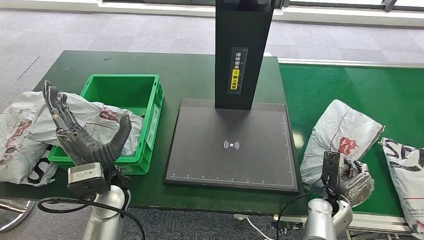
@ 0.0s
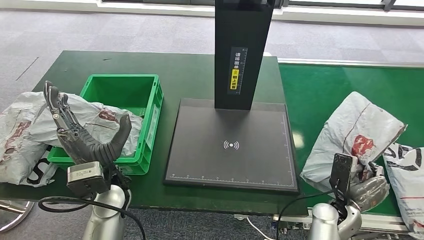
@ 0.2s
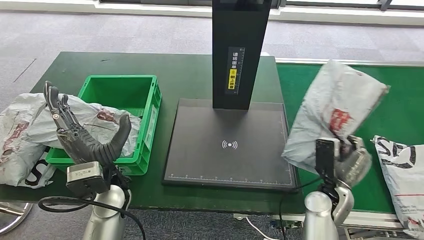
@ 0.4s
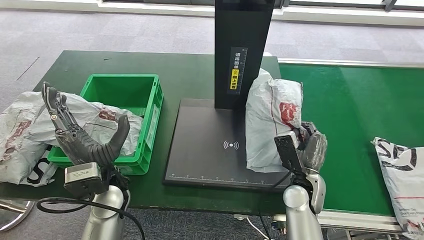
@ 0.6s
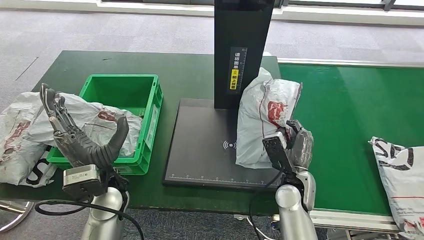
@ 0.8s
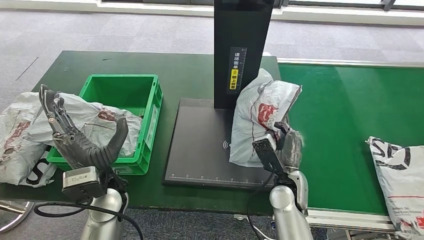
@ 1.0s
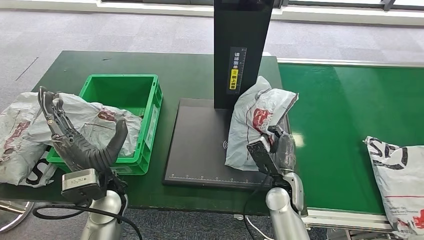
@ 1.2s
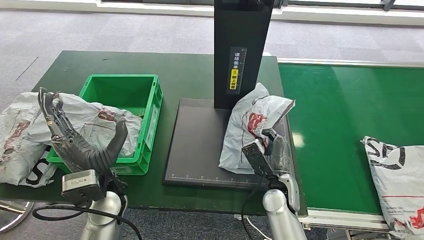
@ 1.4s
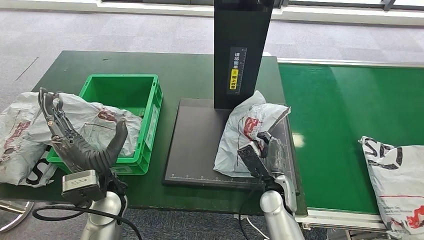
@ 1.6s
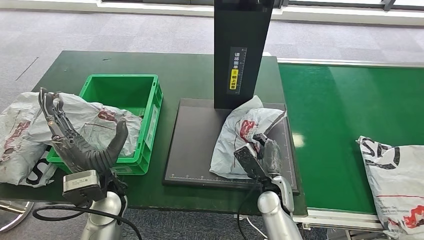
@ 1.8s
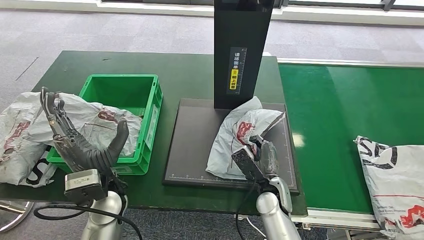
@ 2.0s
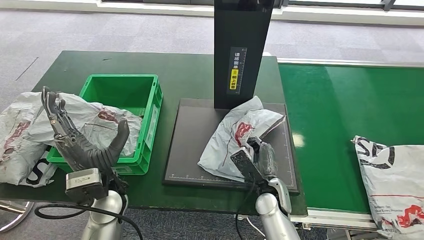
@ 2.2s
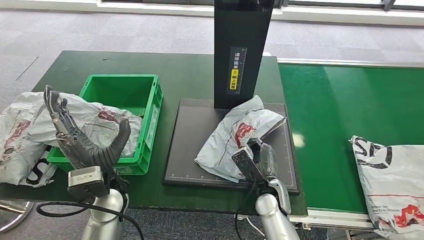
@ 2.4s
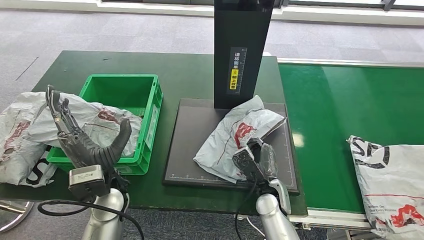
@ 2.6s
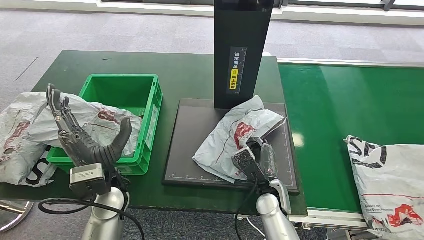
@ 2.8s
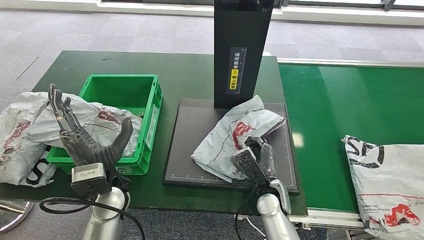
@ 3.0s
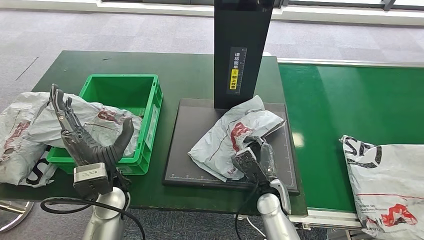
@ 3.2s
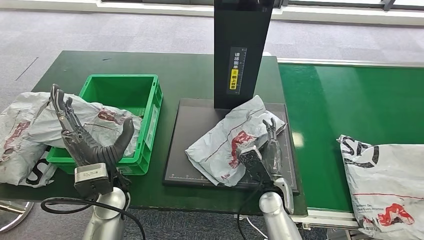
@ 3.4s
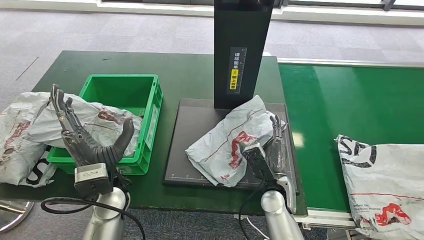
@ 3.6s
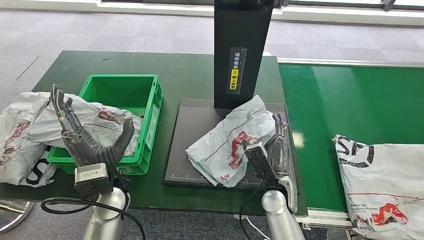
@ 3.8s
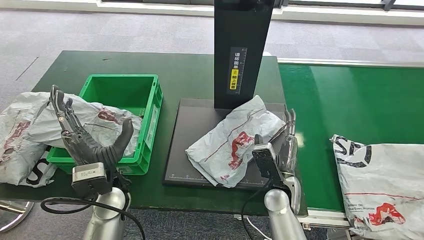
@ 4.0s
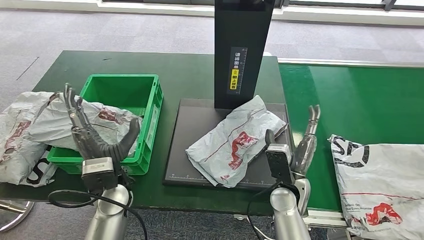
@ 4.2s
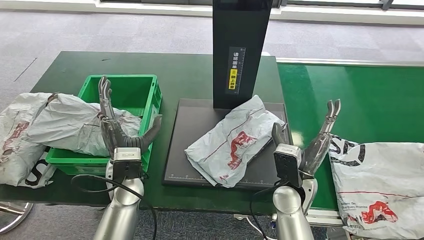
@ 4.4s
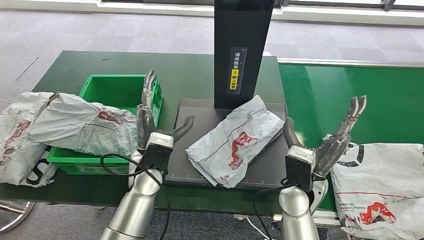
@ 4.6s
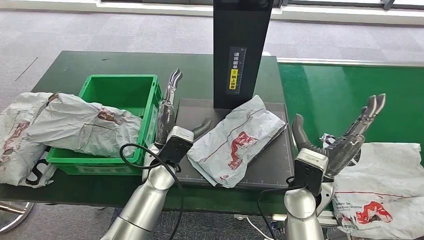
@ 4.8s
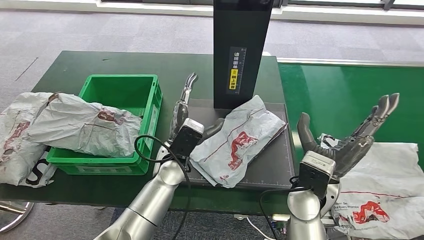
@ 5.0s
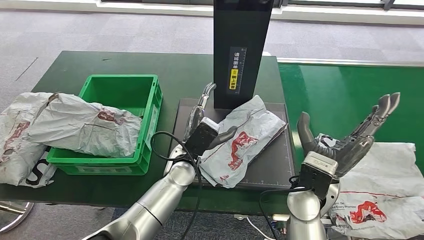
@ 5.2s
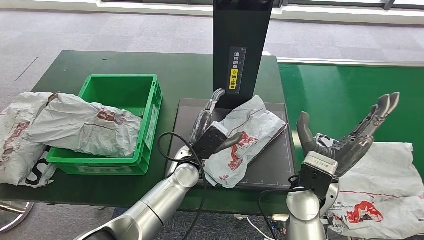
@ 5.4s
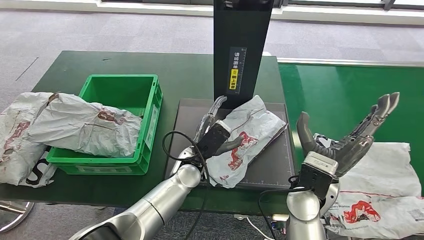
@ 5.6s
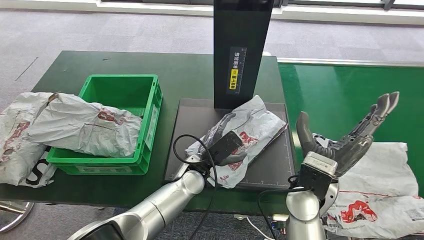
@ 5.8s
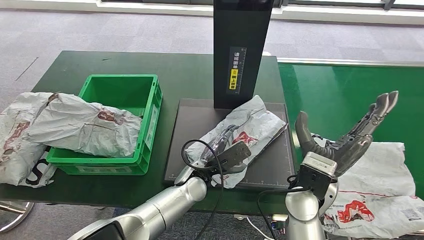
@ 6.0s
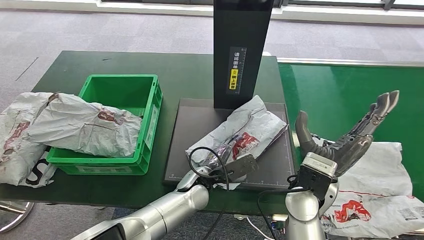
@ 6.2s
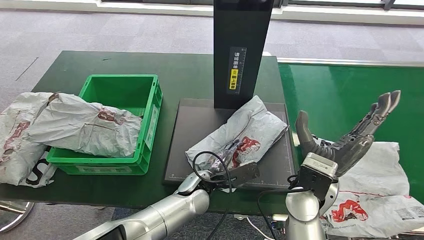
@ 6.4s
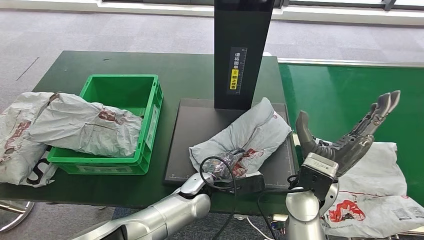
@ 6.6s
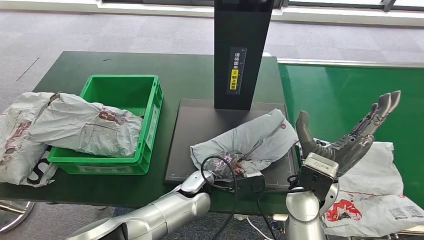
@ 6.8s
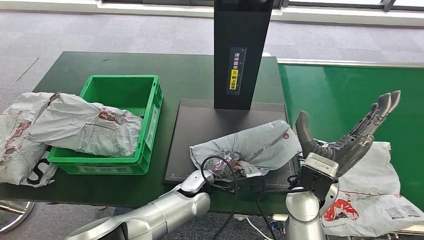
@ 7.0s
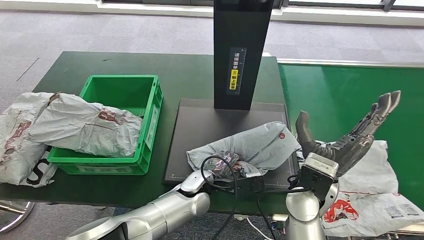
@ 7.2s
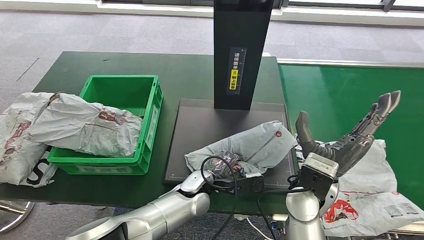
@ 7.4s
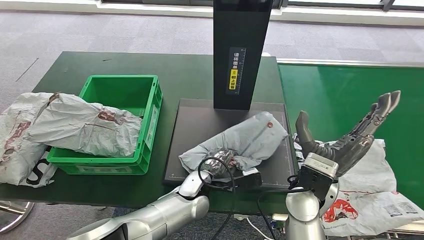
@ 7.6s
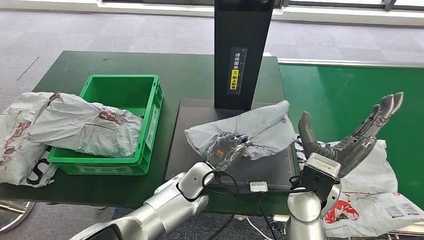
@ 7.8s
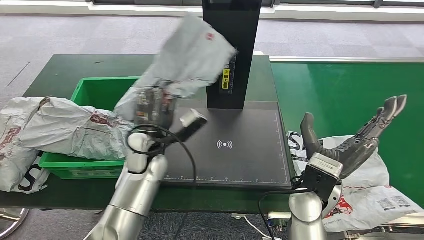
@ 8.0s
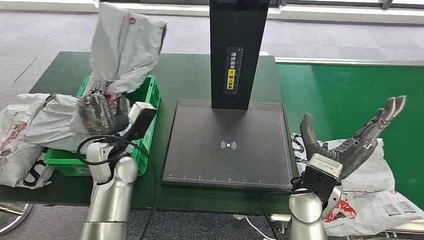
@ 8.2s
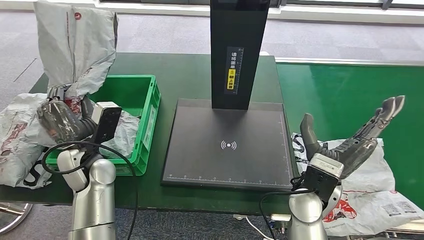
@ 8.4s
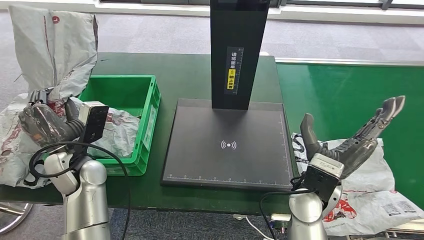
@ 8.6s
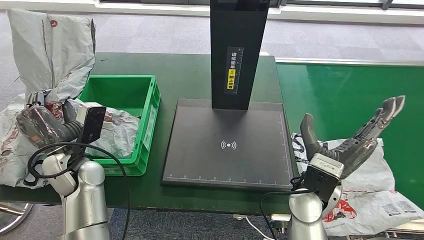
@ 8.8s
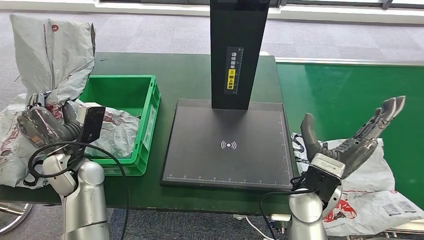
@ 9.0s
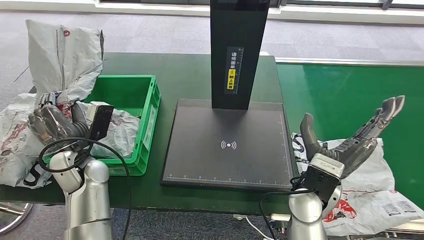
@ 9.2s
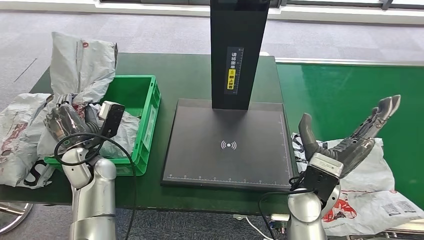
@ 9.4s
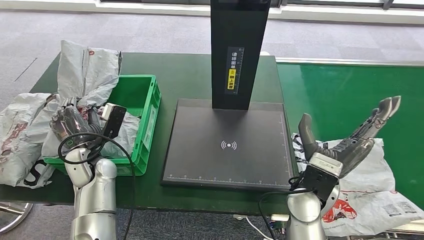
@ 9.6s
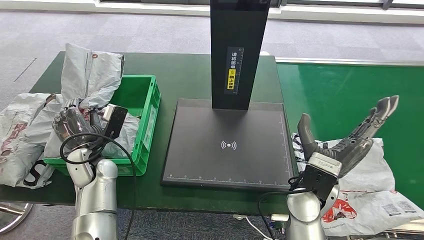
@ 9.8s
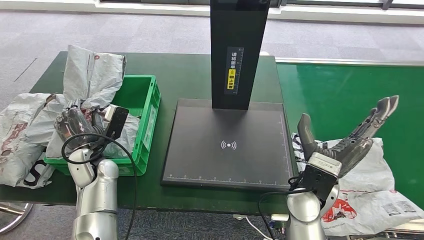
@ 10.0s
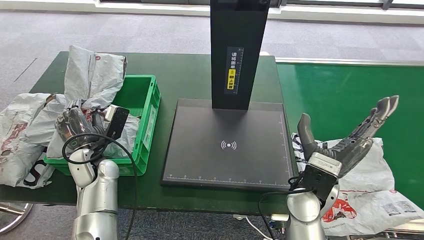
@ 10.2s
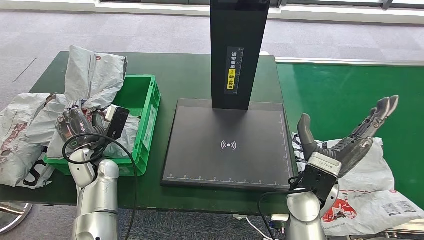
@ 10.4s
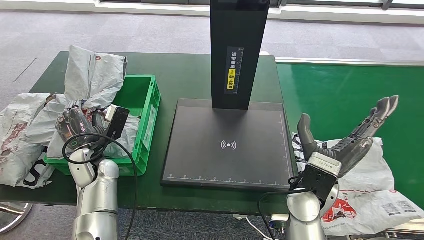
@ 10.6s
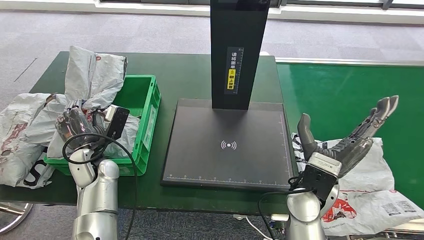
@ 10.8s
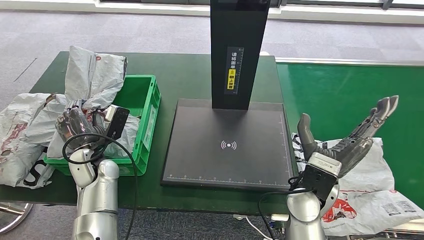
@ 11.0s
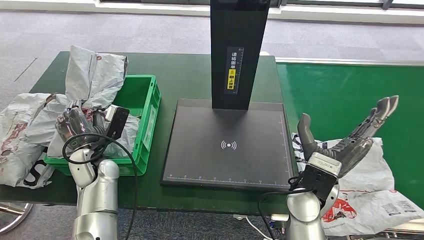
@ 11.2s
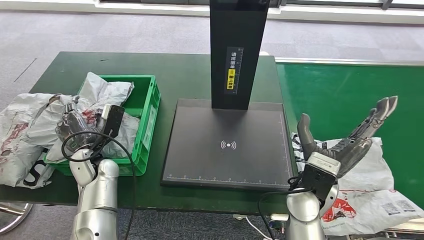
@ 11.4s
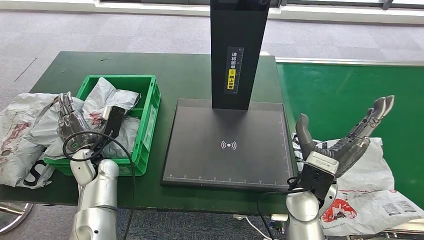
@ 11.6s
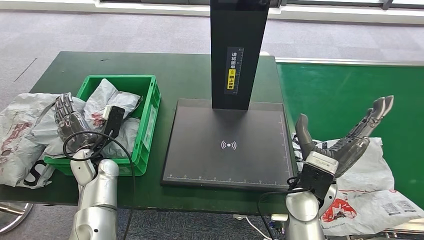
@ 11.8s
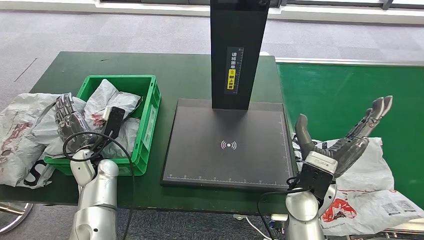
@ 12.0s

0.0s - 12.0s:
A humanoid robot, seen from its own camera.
Step, 1.2s - 4.6s: Place the parcel onto the inbound machine.
Step, 4.8s - 8.6s: Pick up the parcel from the inbound machine.
1.6s - 3.0s: The hands make only small movements.
9.0s - 10.4s: The left hand shifts by about 5 cm.
10.4s - 12.0s: The hands make only small movements.

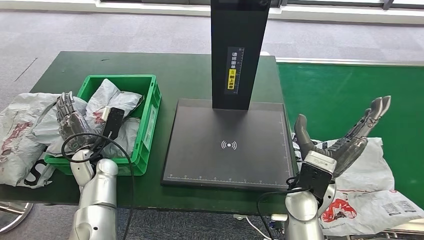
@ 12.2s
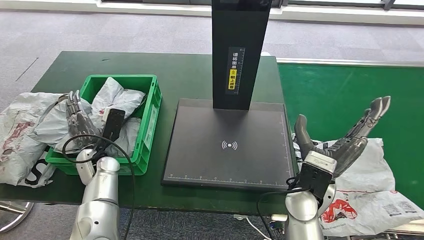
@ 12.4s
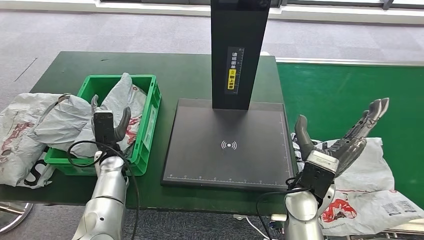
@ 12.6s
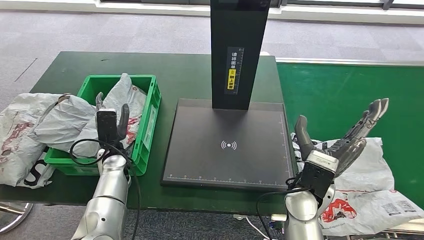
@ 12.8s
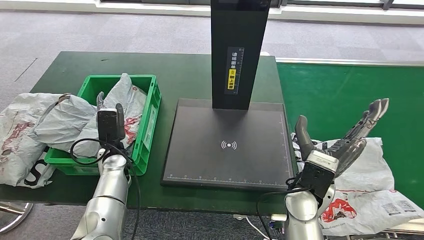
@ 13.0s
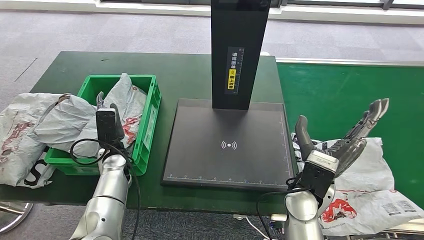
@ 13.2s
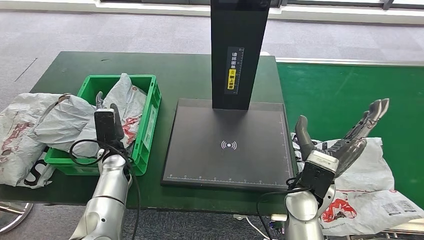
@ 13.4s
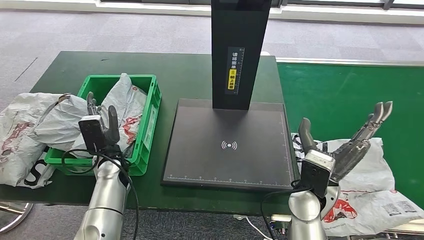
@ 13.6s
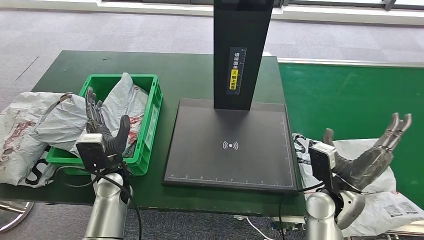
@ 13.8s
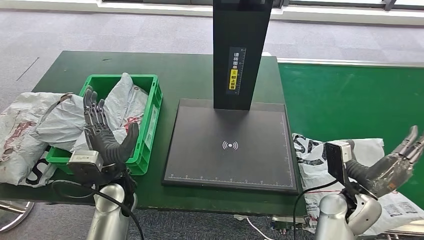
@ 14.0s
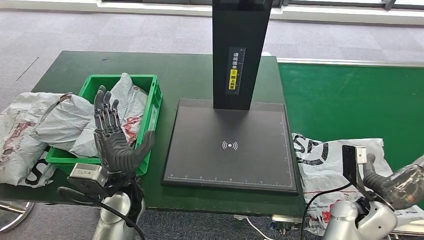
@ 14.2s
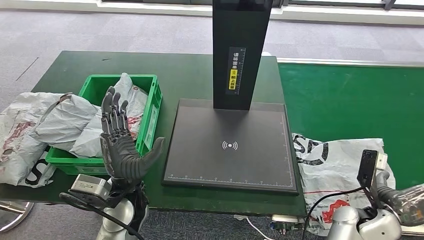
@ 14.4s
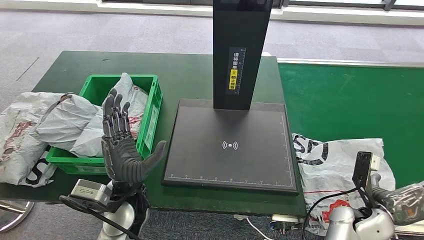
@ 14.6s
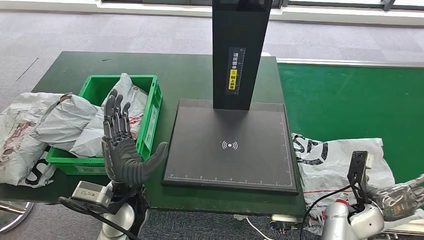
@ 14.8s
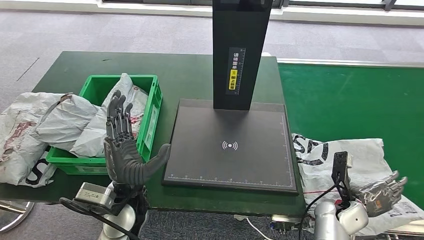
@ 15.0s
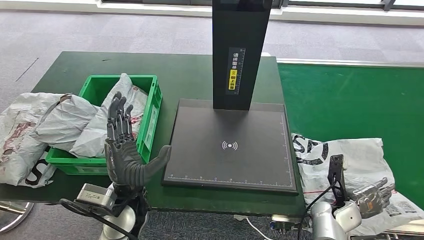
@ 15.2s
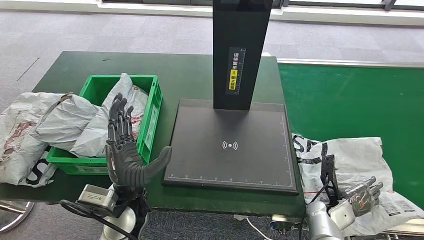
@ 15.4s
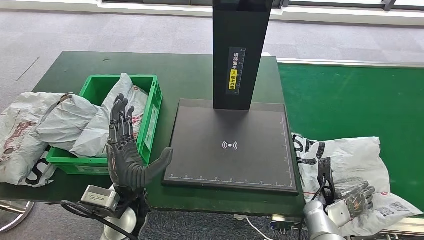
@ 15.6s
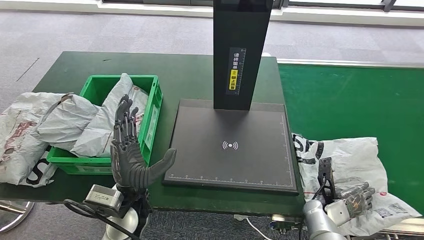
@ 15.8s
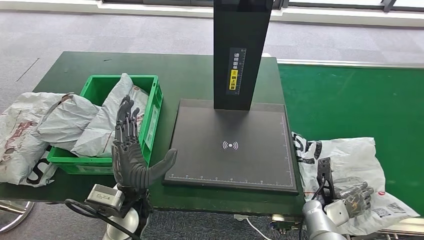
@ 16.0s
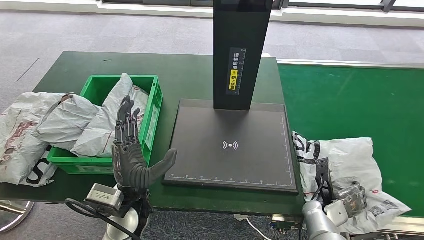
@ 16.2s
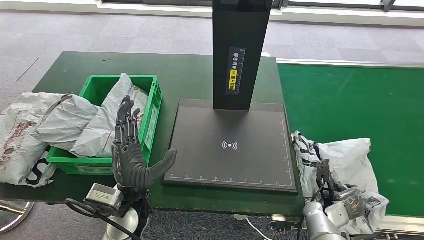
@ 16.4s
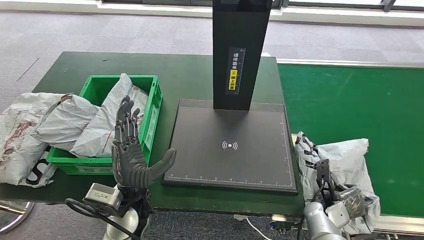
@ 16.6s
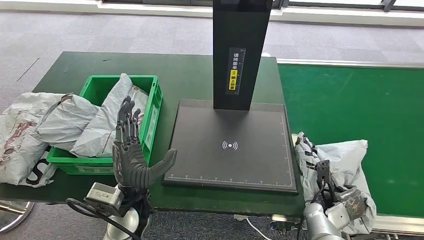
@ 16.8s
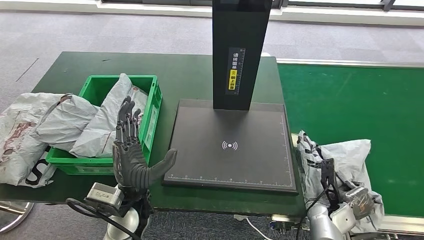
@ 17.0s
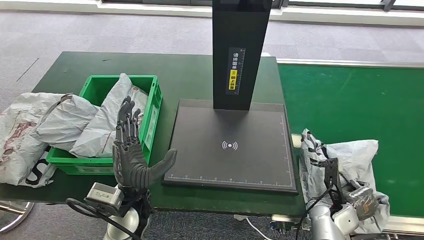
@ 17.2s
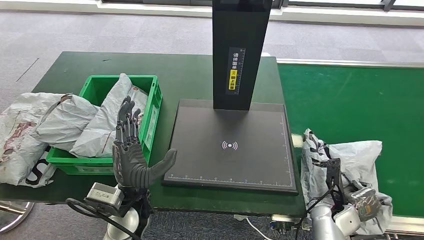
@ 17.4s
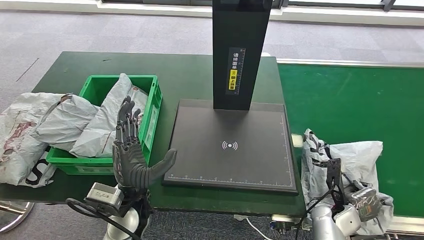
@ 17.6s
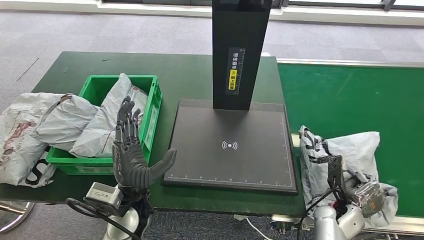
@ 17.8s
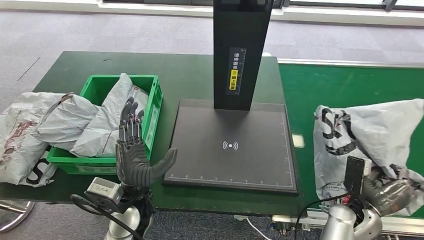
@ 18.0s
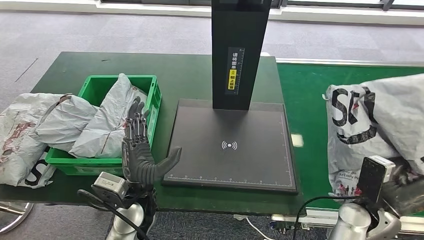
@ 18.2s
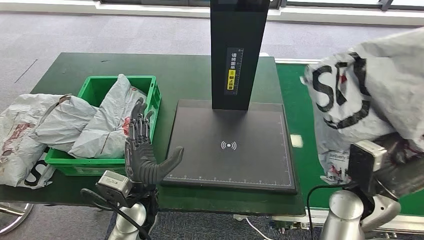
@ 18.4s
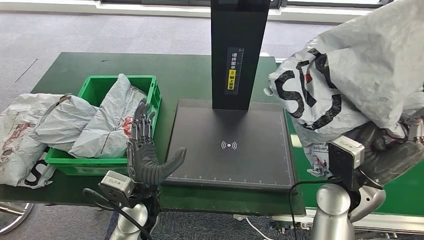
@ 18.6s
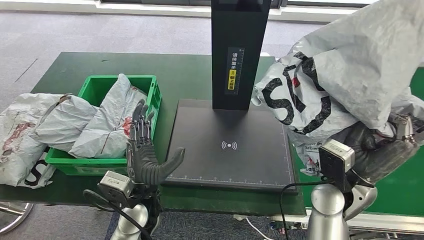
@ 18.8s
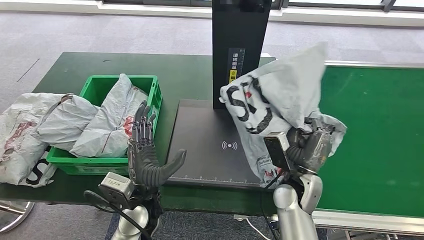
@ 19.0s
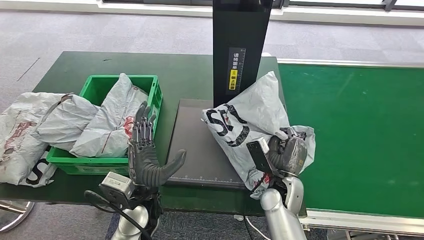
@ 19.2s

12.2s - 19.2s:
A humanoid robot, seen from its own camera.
Step, 12.2s - 14.4s: Place the parcel into the delivery box.
Step, 14.6s - 18.6s: Pick up the parcel from the conveyor belt.
